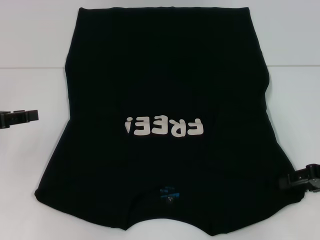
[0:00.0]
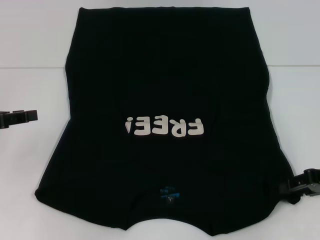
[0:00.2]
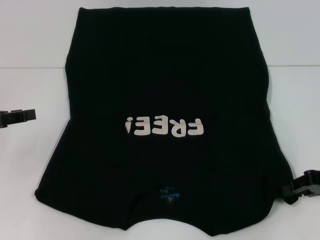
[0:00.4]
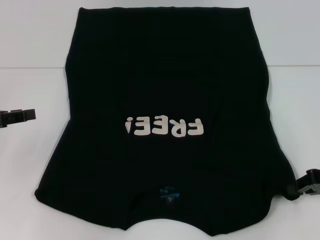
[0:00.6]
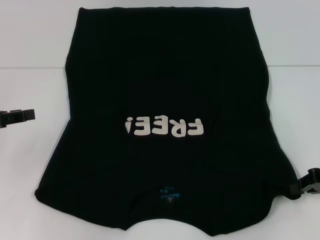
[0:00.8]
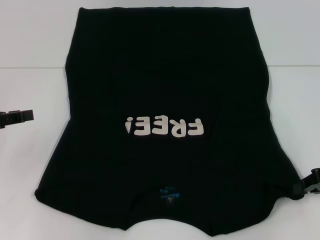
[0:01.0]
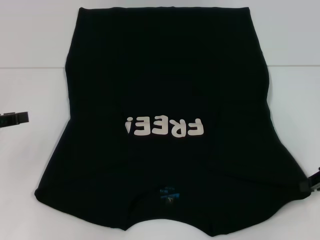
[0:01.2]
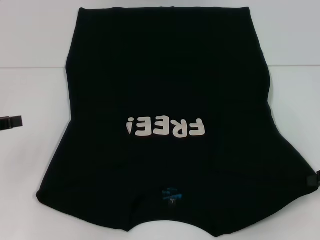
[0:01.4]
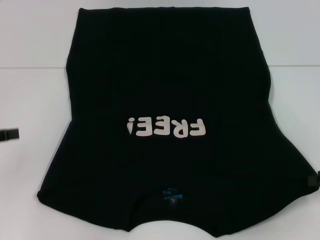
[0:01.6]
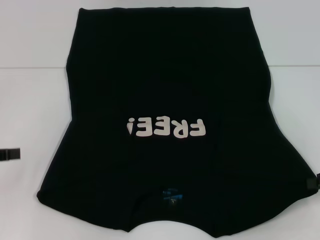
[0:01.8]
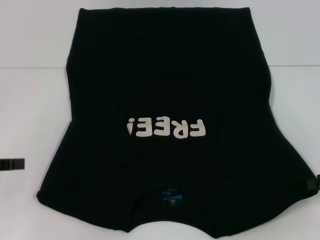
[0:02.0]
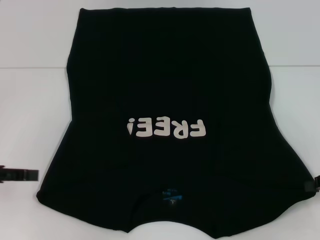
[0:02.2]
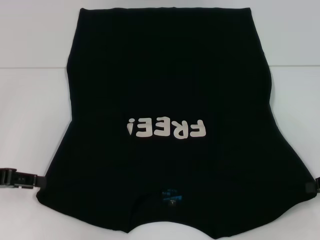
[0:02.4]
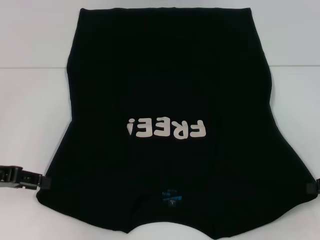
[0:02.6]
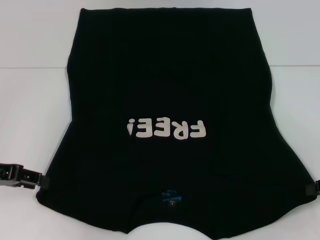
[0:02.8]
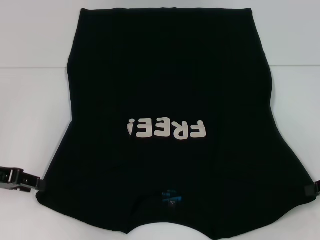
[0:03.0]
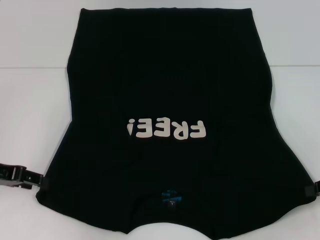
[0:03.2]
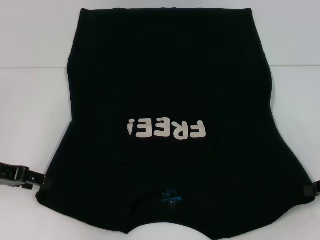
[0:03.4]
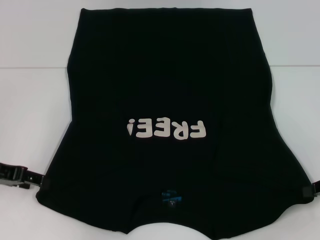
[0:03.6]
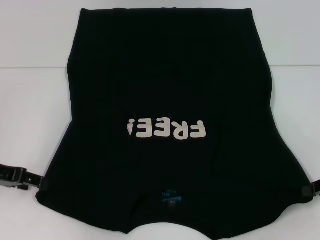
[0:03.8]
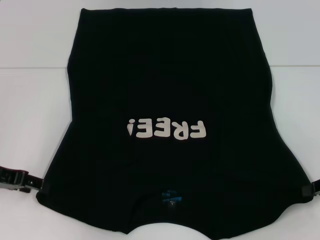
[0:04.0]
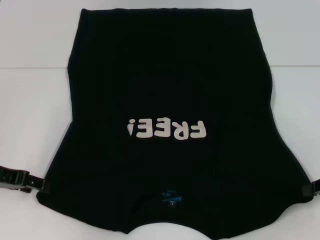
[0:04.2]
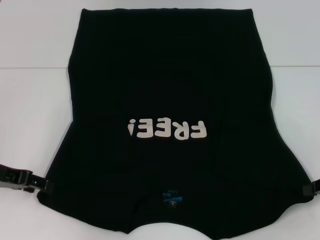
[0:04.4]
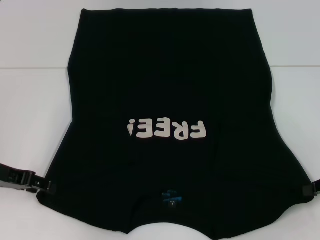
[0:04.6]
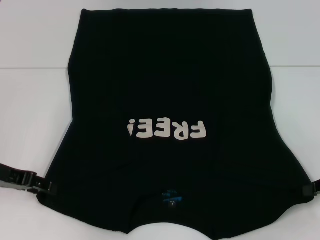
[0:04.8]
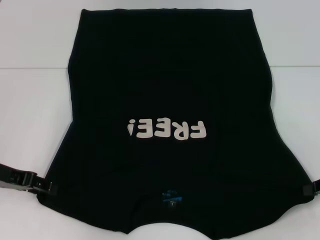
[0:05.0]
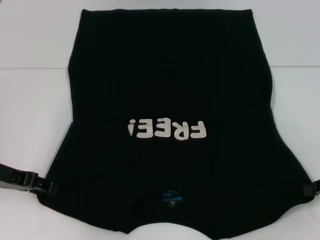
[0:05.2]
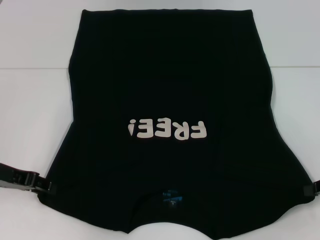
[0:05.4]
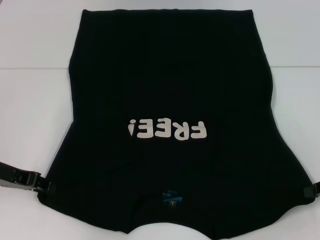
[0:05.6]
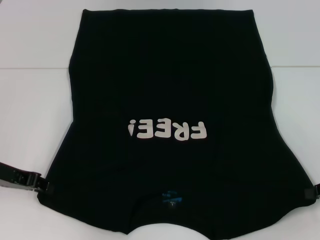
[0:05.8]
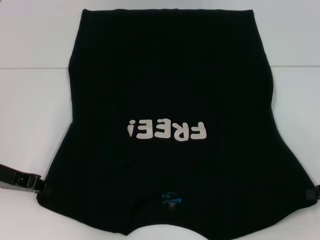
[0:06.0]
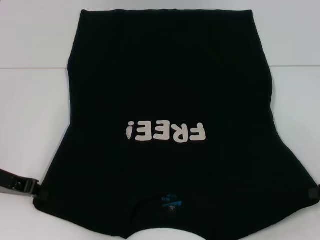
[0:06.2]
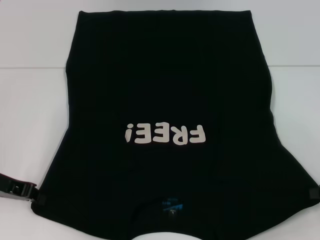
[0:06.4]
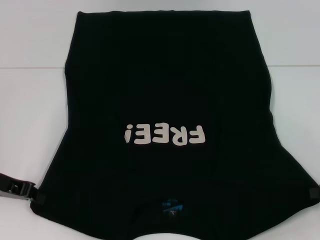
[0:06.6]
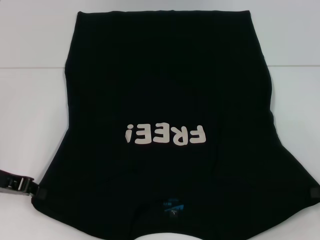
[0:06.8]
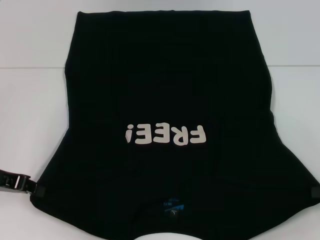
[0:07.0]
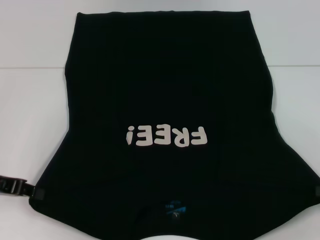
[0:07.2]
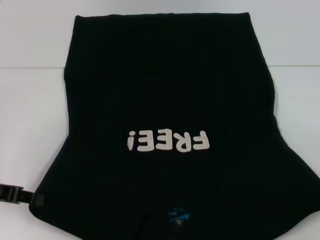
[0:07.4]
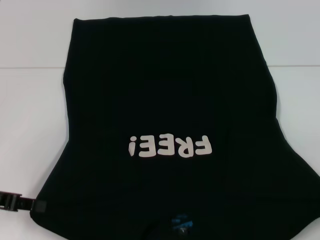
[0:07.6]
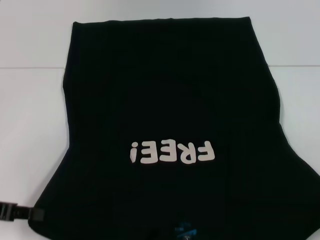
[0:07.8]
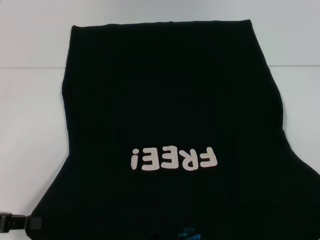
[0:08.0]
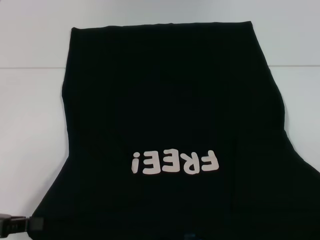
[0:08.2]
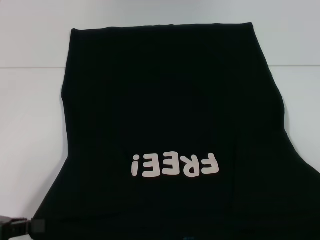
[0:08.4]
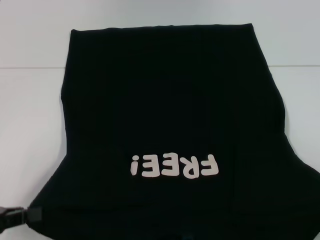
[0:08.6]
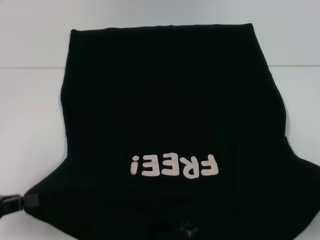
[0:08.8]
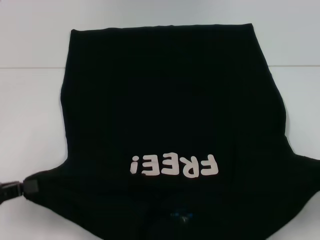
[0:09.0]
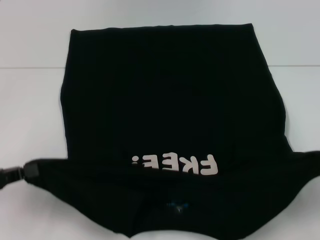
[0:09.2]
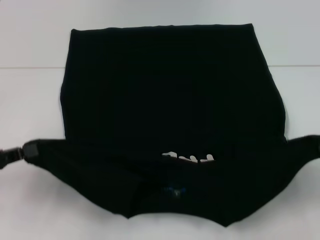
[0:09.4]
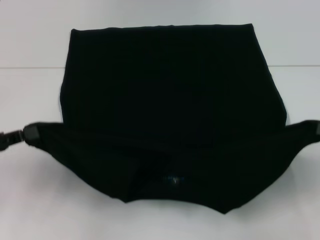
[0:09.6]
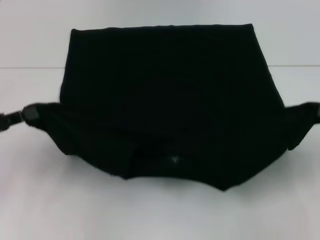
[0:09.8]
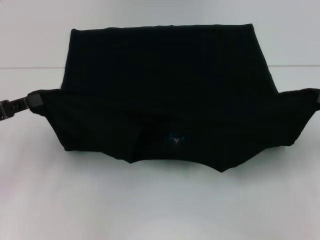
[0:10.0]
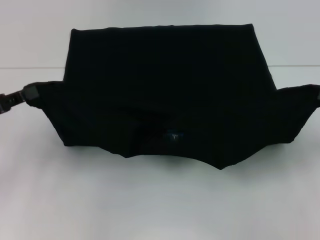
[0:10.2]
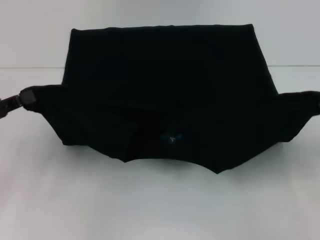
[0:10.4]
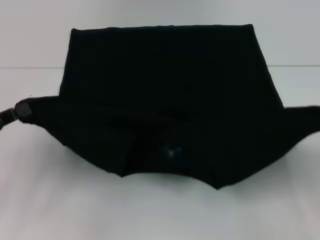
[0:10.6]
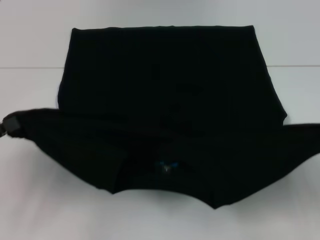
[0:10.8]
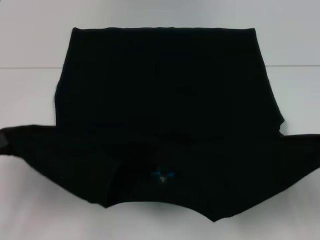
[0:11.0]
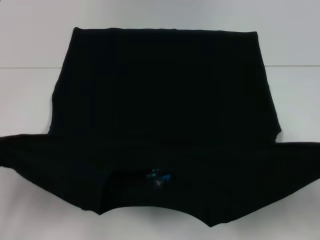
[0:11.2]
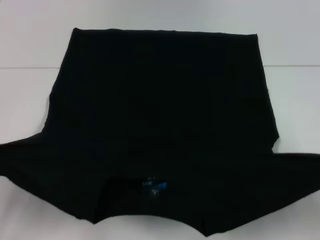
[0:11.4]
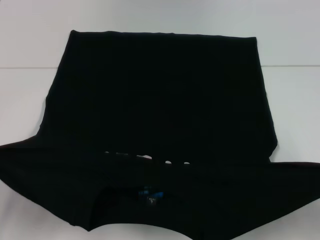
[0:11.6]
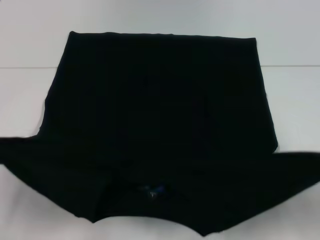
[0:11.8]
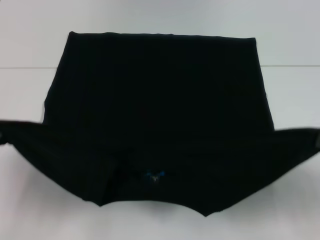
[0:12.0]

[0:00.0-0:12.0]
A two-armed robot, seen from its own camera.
Step, 0:00.6 to 0:06.6: Grab the bottom left corner with your left hand.
0:00.0 to 0:01.6: The right gripper closes its fingers.
0:01.6 to 0:03.0: The left gripper moves about 5 cm.
0:03.0 to 0:04.4: The grippers make only small movements.
0:04.4 to 0:06.0: The left gripper closes up.
0:06.0 to 0:07.6: The left gripper changes place by some 5 cm.
0:07.6 to 0:09.0: The left gripper shifts approximately 5 cm backward.
0:09.0 to 0:10.4: Both grippers move forward, roughly 5 cm.
0:10.4 to 0:12.0: The left gripper moves backward, approximately 10 cm.

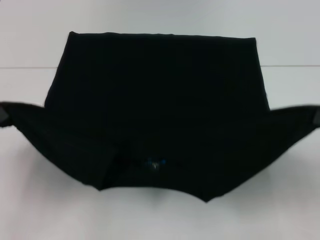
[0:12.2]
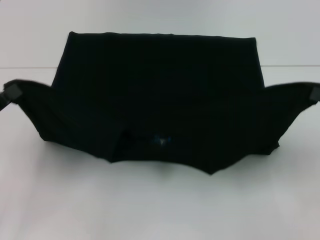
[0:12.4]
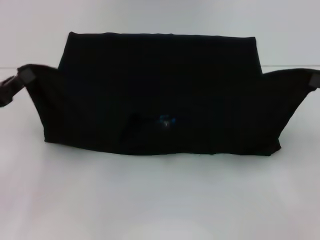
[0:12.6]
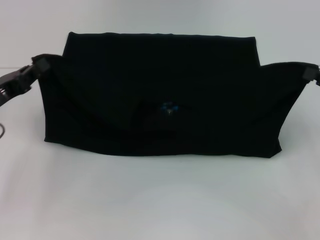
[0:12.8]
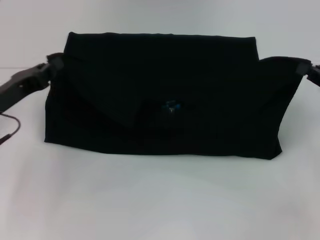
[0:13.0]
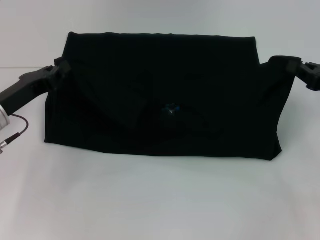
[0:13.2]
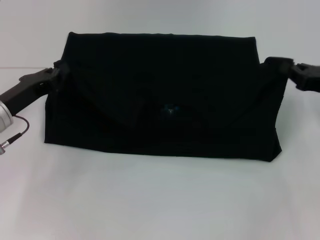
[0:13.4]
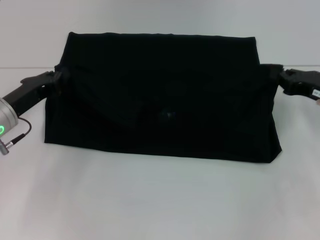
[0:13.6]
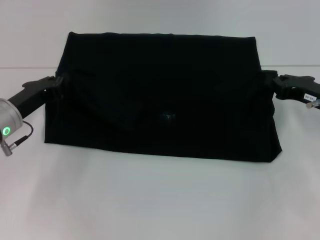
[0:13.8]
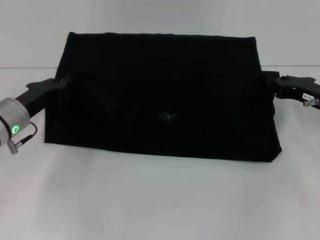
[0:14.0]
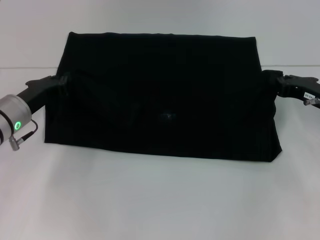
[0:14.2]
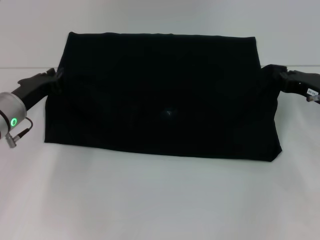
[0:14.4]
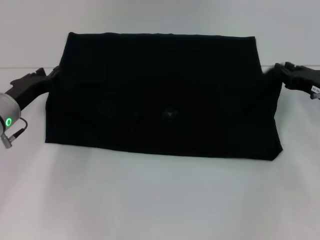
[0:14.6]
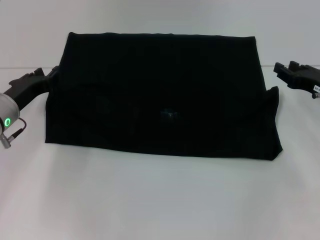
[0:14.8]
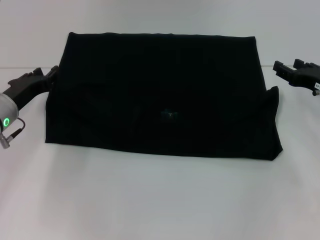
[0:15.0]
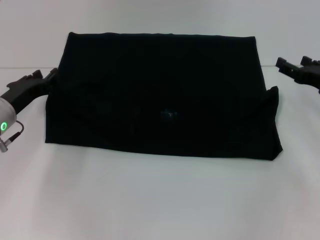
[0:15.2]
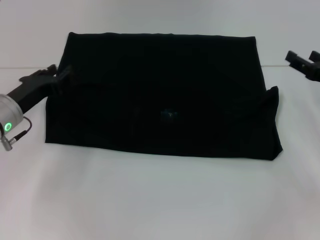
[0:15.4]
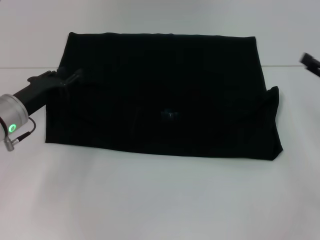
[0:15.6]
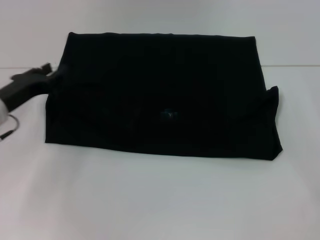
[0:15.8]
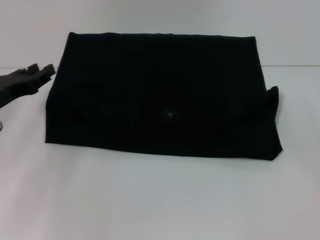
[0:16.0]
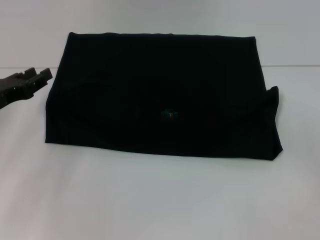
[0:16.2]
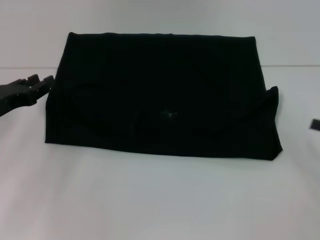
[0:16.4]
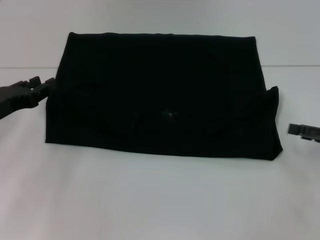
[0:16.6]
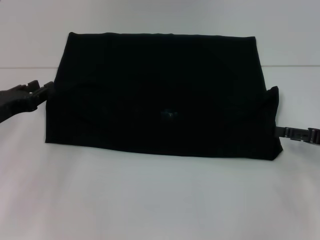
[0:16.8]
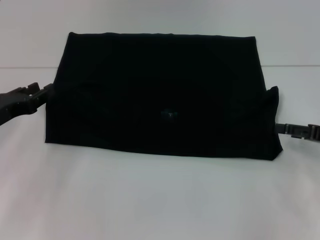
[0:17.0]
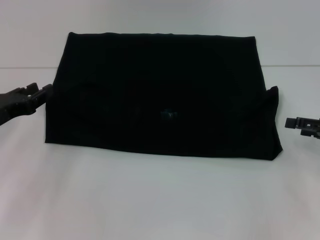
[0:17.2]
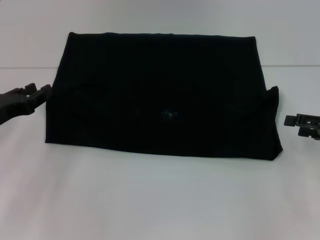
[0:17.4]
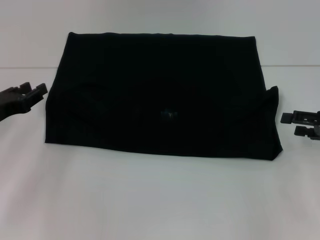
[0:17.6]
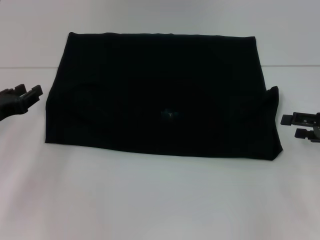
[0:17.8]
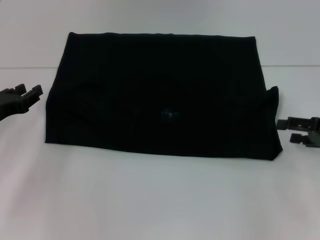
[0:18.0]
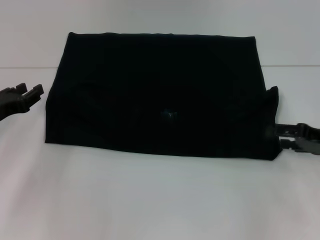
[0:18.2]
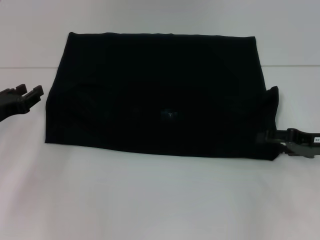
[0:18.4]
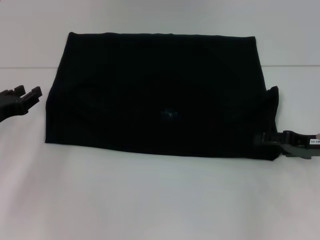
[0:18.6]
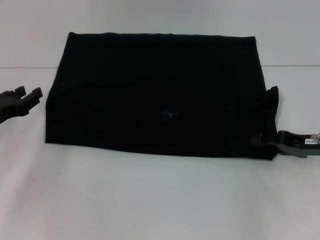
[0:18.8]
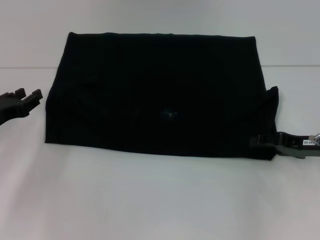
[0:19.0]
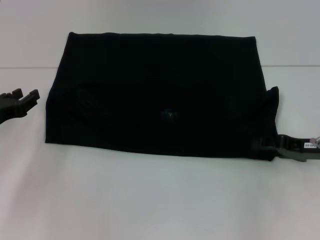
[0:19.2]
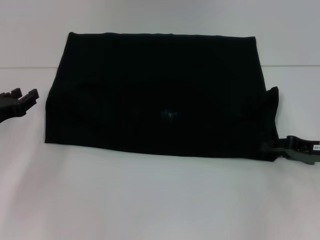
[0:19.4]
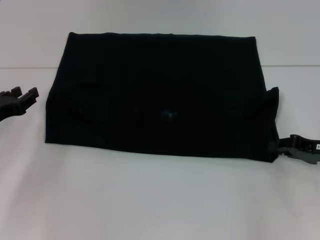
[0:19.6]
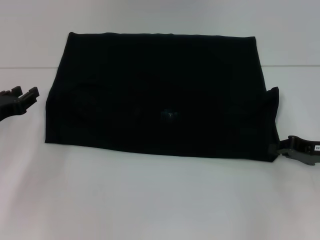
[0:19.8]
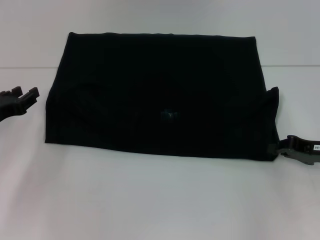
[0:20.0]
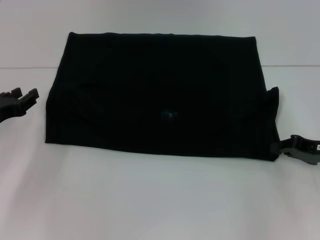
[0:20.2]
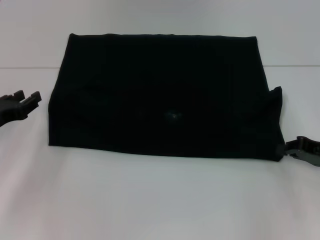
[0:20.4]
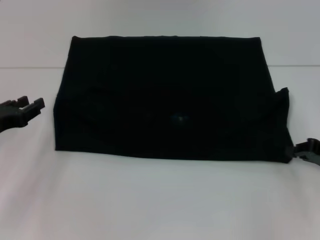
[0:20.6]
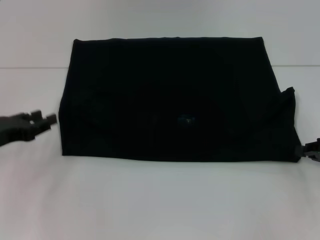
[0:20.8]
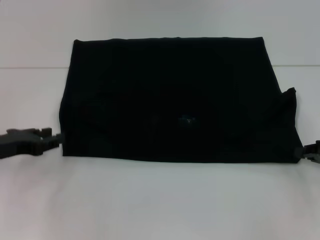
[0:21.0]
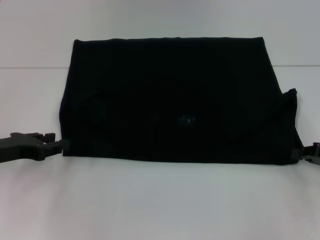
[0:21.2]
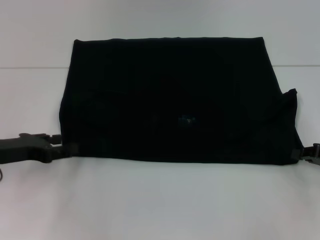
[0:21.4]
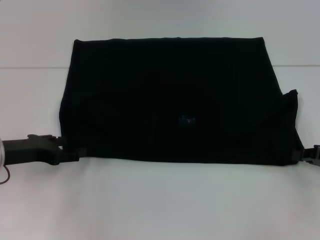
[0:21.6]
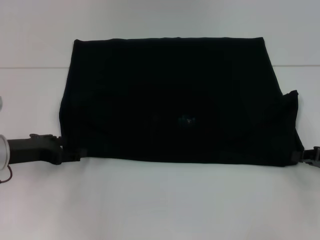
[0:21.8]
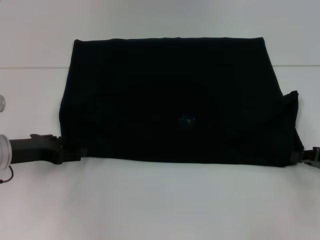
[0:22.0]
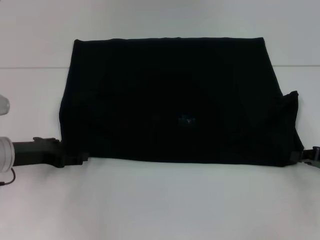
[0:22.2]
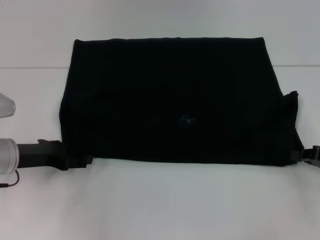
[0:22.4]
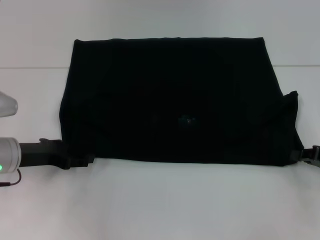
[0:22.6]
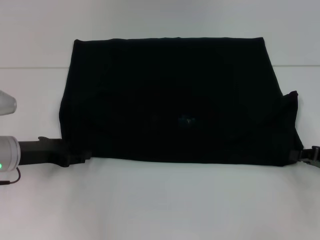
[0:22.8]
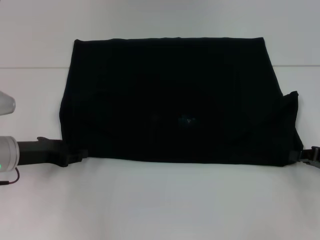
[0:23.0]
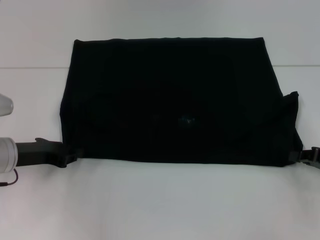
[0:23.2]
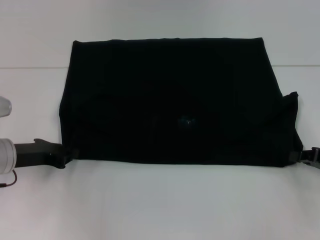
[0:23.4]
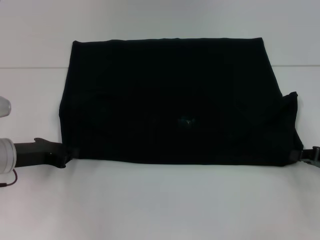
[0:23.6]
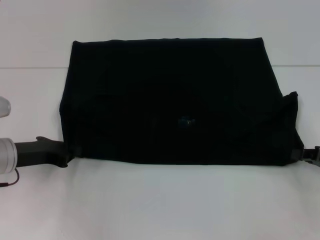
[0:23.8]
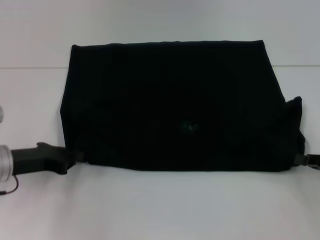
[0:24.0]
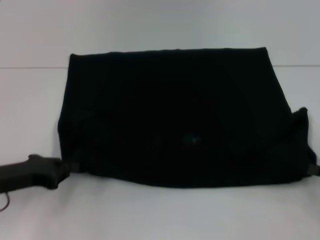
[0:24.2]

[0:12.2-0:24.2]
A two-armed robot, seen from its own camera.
Step, 0:12.2 to 0:14.8: Fold the clothes with your left hand.
Step, 0:12.2 to 0:14.8: Fold the clothes with your right hand.
0:12.2 to 0:13.8: The left gripper is displaced forward and to the right by roughly 15 cm, while the right gripper travels forward and to the left by some 15 cm.
0:13.8 to 0:15.2: The left gripper opens; the right gripper opens up.
0:15.2 to 0:16.6: The left gripper shifts by about 5 cm. The right gripper travels backward and to the right by some 10 cm.
0:16.6 to 0:18.2: The grippers make only small movements.
0:18.2 to 0:19.8: The right gripper closes.
0:21.2 to 0:22.6: The grippers move only a little.
0:22.6 to 0:24.2: The two grippers go roughly 5 cm backward. The left gripper closes up.
